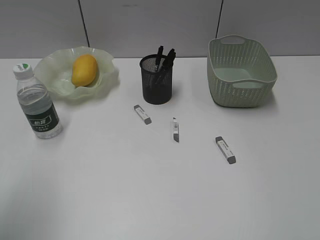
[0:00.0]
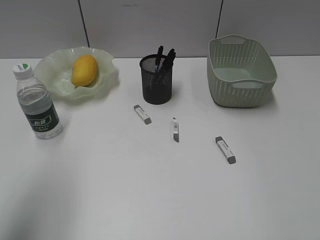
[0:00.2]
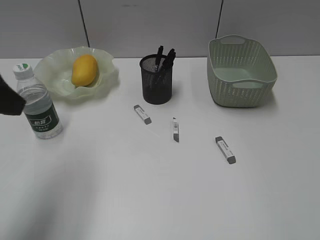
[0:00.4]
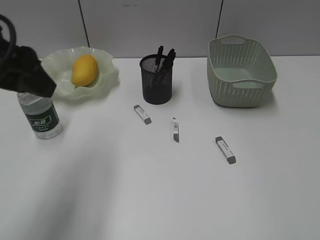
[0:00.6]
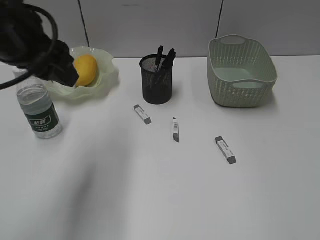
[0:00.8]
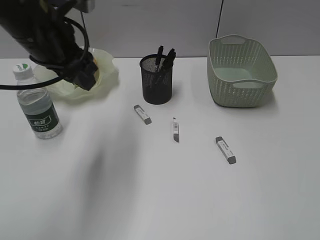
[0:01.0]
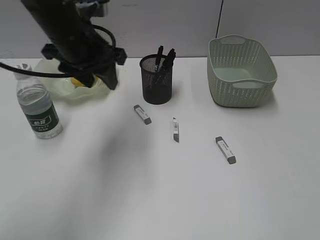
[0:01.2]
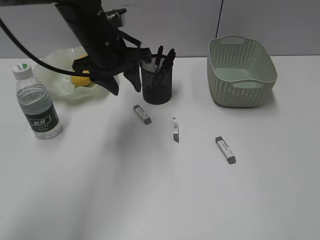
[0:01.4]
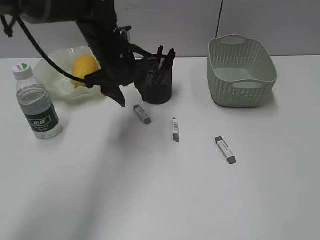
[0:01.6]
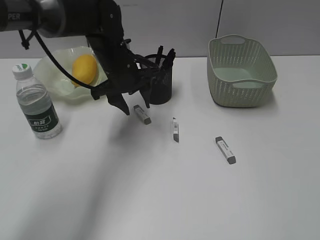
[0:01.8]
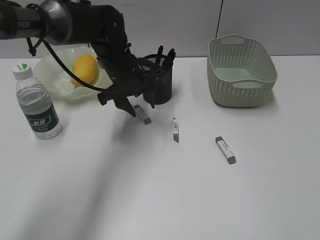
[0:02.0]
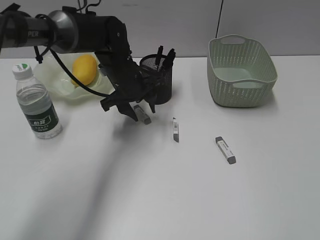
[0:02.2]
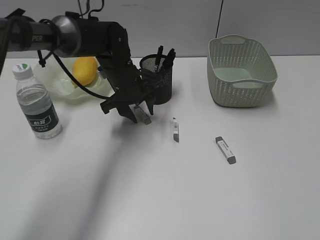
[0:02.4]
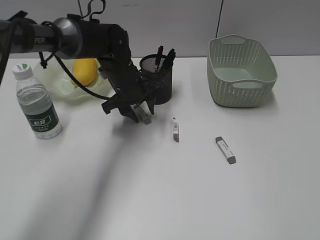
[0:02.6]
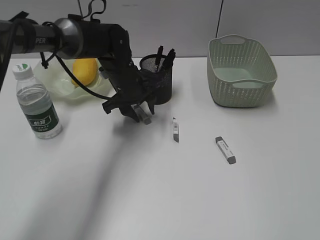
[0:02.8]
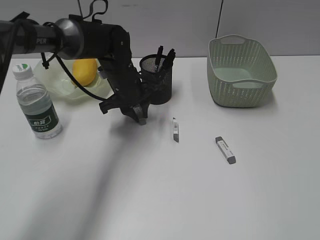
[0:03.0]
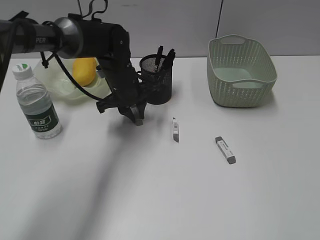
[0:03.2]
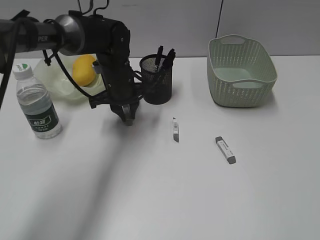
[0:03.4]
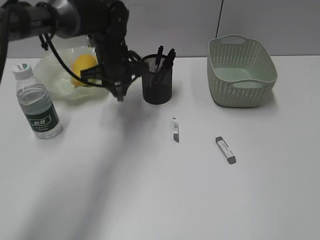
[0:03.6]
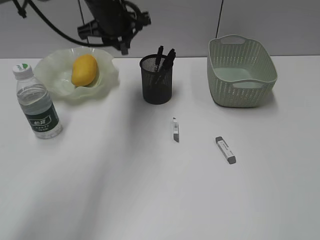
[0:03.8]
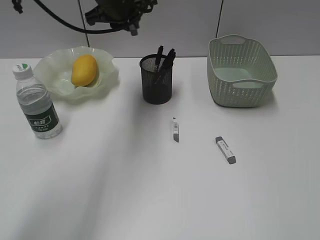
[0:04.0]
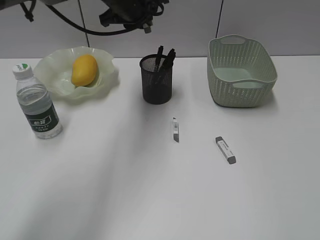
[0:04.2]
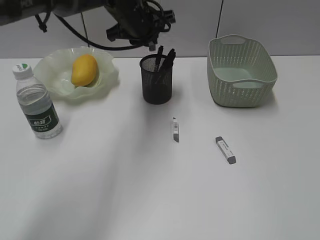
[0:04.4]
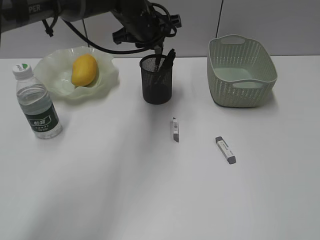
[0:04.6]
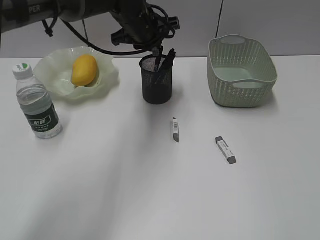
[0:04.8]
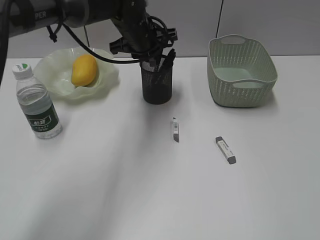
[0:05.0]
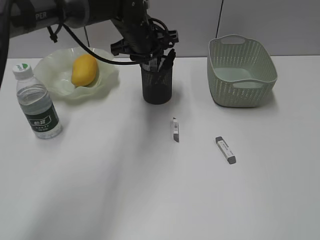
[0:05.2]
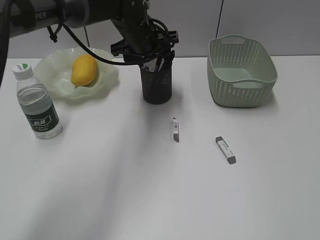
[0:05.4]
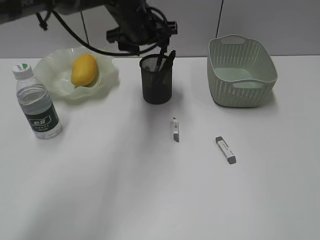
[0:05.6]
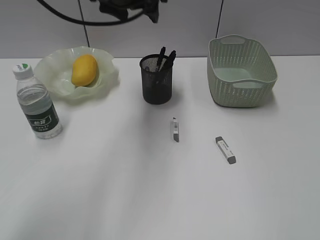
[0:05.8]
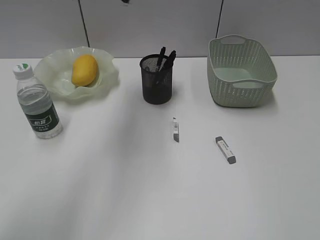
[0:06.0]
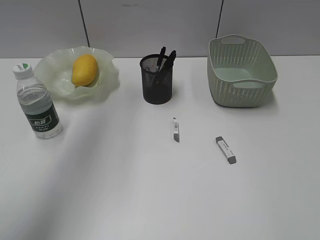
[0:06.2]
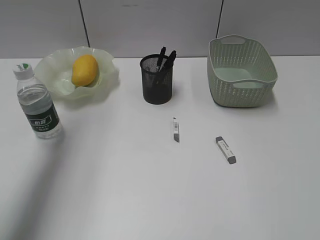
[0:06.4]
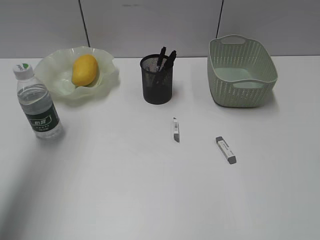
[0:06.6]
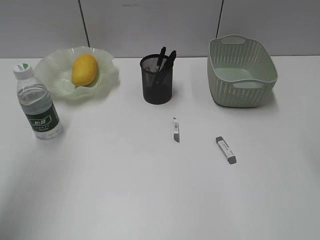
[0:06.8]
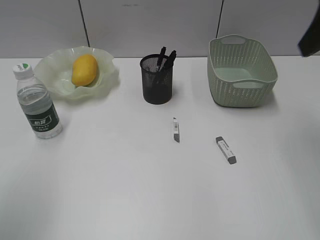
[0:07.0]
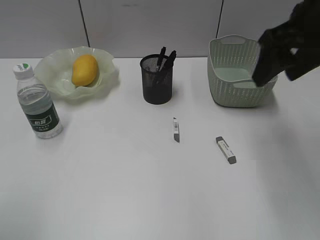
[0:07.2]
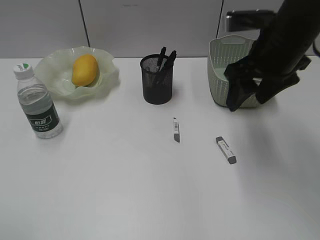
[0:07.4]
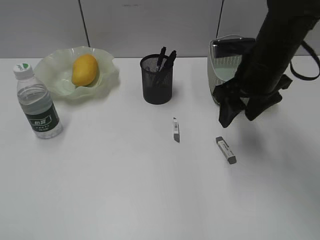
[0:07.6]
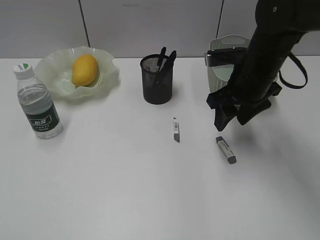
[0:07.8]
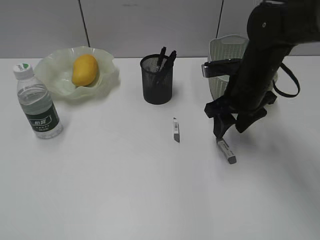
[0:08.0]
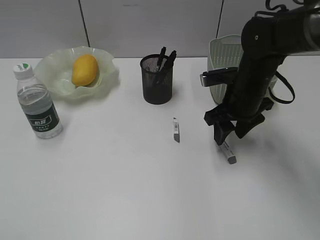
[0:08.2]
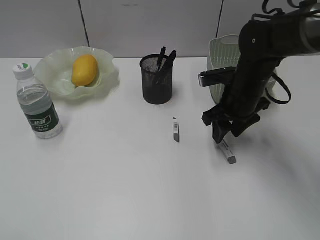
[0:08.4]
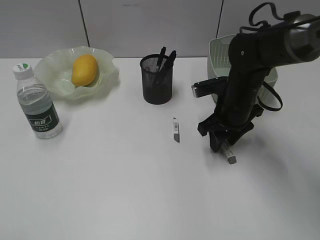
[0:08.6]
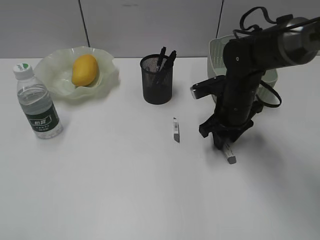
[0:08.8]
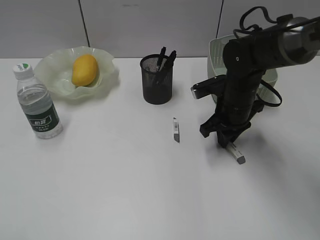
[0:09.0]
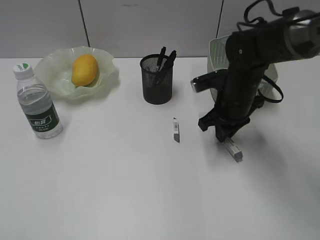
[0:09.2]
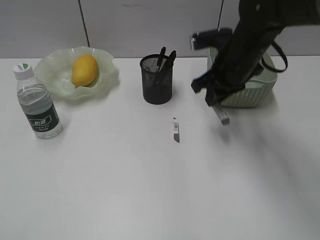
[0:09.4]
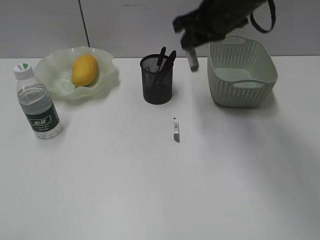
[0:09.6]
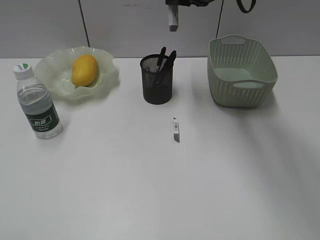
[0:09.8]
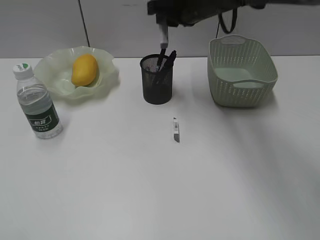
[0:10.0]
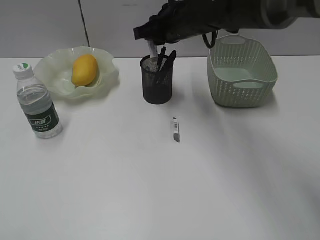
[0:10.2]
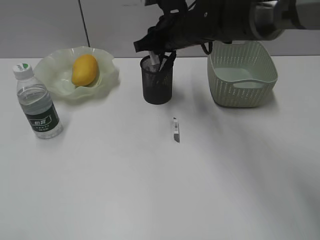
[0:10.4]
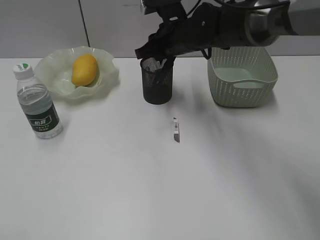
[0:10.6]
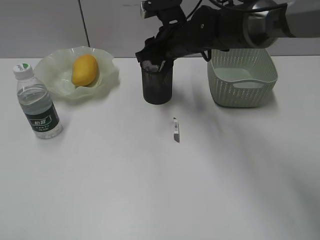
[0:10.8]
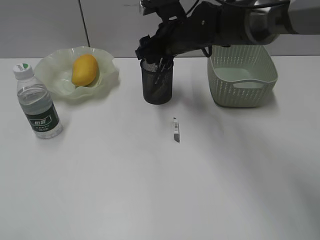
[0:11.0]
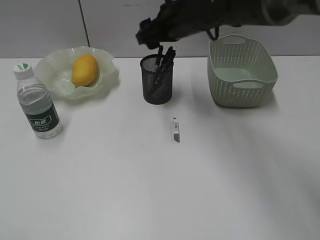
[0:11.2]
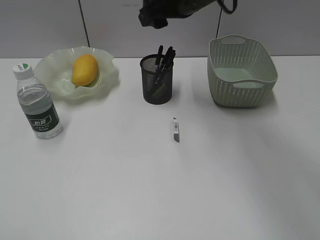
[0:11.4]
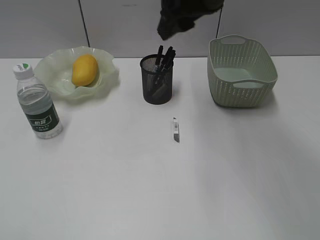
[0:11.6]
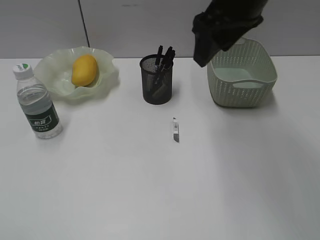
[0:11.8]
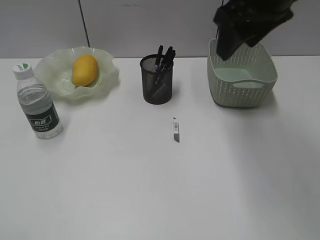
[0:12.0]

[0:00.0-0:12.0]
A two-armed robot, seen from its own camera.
Step, 0:00.0 to 0:03.0: Grasp the eraser with left gripper.
Step, 0:03.2 to 0:05.6: Place the eraser in pen holder with left gripper.
Step, 0:05.8 to 0:09.0: Grasp the eraser with right gripper.
Step, 0:09.2 to 0:10.8: Place the eraser in pen holder with right gripper.
0:00.0 to 0:01.6: The left gripper moves forward, to the right and downward, some 35 cm.
0:01.6 to 0:03.0: The left gripper heads downward, covering approximately 5 cm, and closes its fingers.
0:03.0 to 0:04.4: The left gripper heads upward, covering some 10 cm.
0:04.4 to 0:06.0: The left gripper travels upward, to the left and backward by some 20 cm, and opens.
0:06.0 to 0:07.6: The left gripper shifts approximately 40 cm backward and to the left, while the right gripper is displaced forward and to the left by about 35 cm.
0:07.6 to 0:09.0: The right gripper heads downward, covering approximately 10 cm, and closes.
0:09.0 to 0:10.4: The right gripper travels to the left, upward and forward by about 15 cm.
0:10.4 to 0:12.0: The right gripper goes roughly 20 cm upward, backward and to the right, and opens.

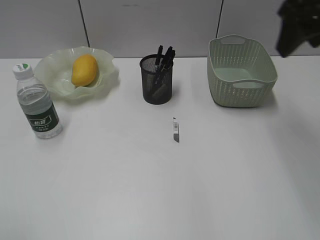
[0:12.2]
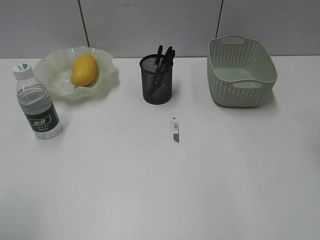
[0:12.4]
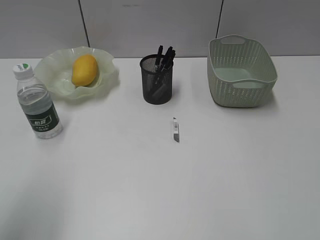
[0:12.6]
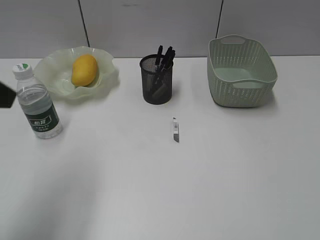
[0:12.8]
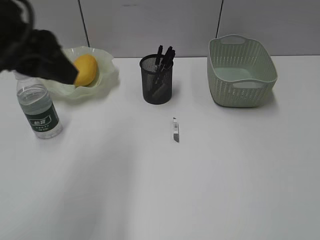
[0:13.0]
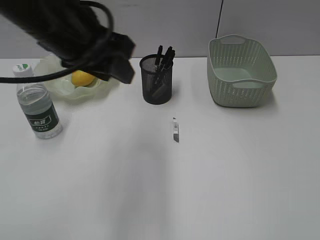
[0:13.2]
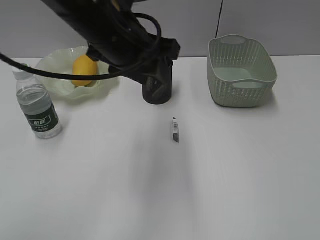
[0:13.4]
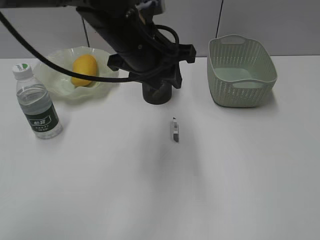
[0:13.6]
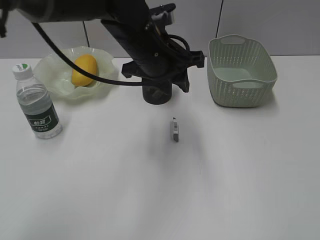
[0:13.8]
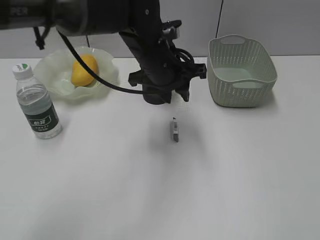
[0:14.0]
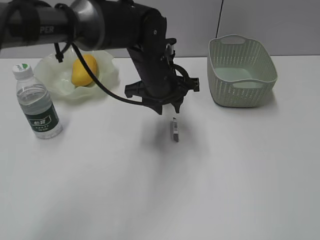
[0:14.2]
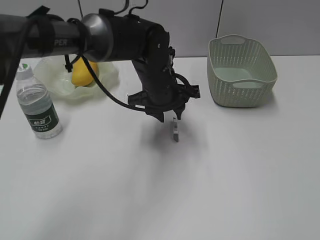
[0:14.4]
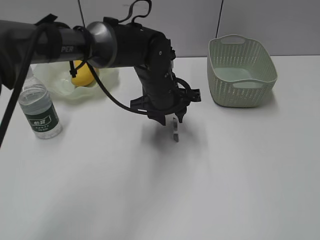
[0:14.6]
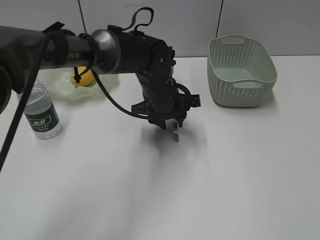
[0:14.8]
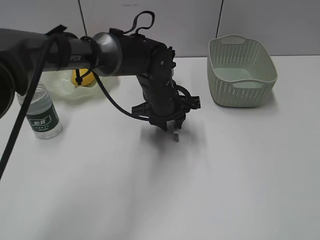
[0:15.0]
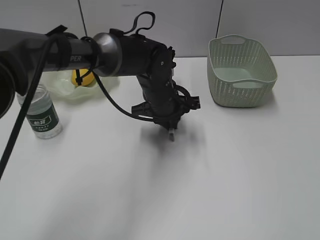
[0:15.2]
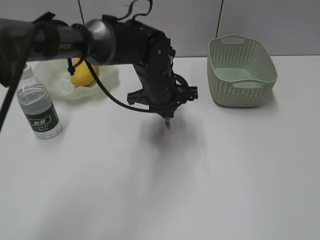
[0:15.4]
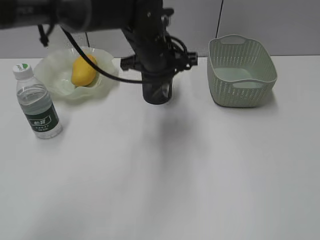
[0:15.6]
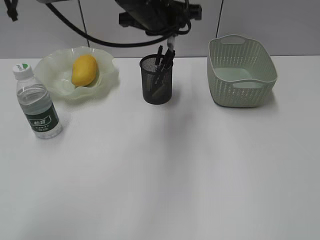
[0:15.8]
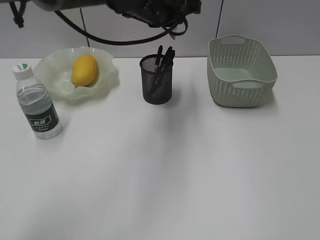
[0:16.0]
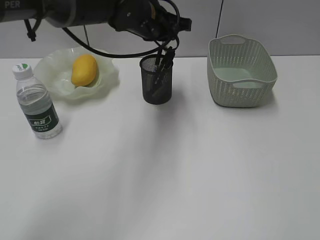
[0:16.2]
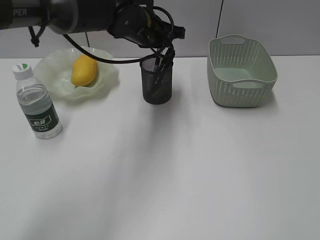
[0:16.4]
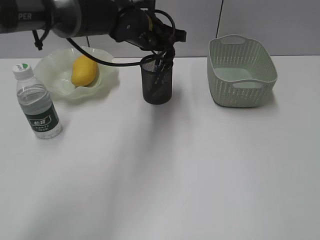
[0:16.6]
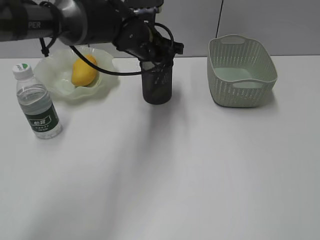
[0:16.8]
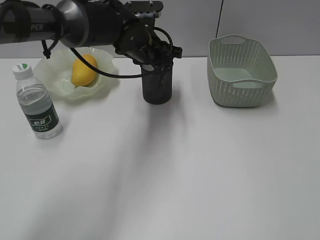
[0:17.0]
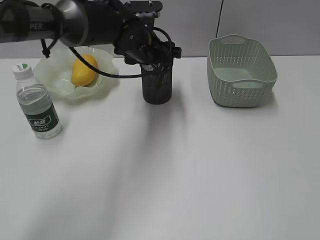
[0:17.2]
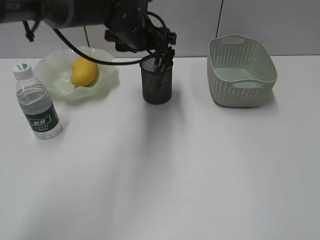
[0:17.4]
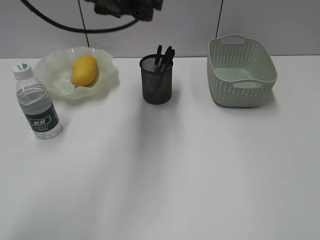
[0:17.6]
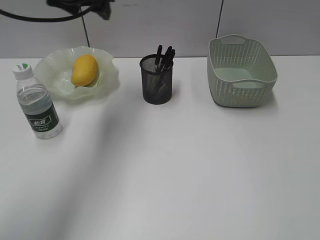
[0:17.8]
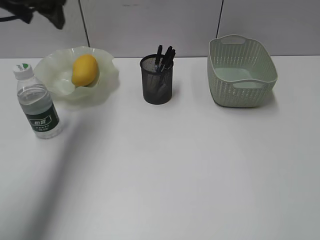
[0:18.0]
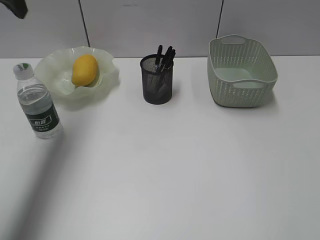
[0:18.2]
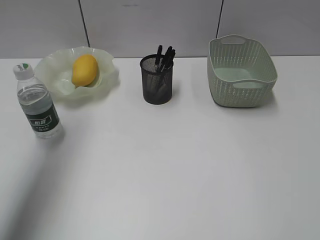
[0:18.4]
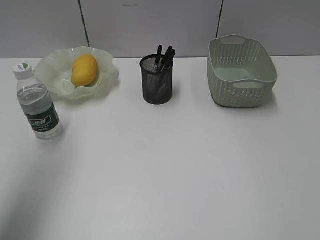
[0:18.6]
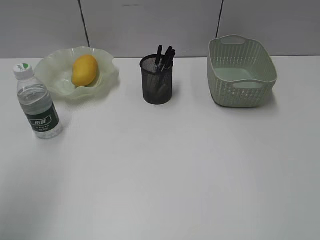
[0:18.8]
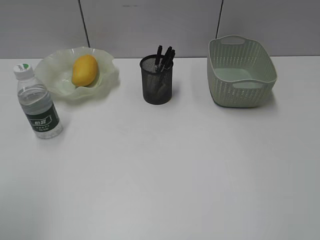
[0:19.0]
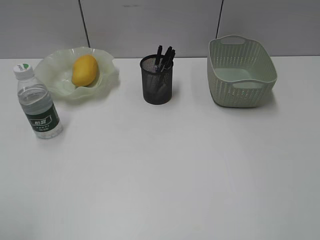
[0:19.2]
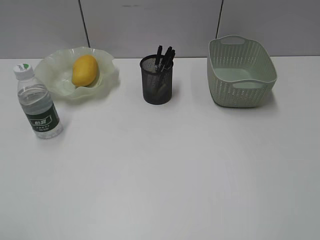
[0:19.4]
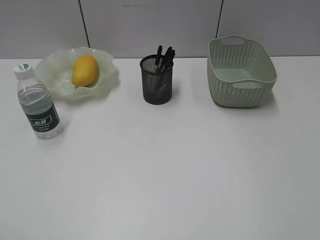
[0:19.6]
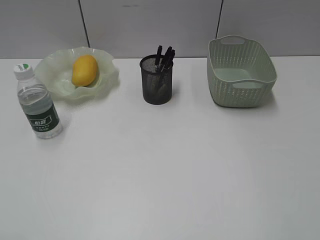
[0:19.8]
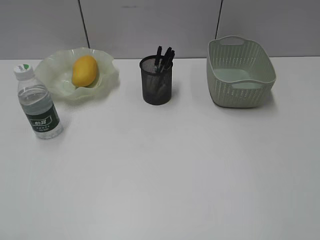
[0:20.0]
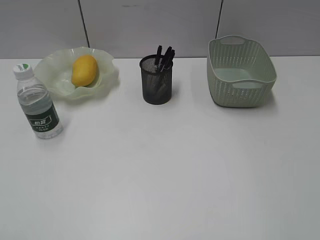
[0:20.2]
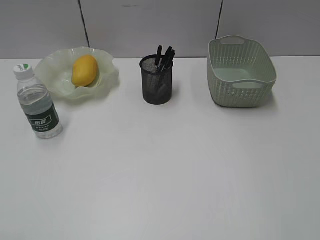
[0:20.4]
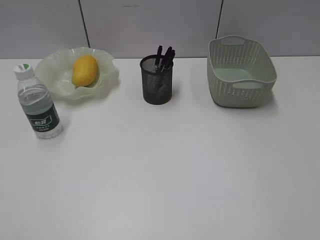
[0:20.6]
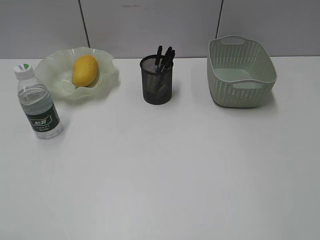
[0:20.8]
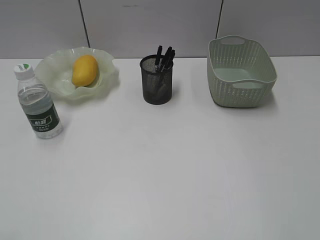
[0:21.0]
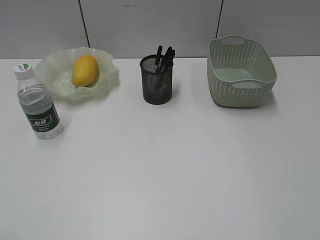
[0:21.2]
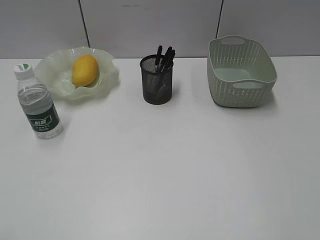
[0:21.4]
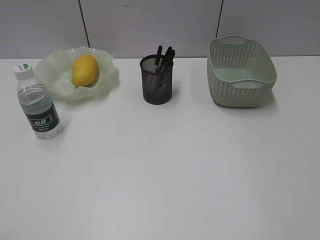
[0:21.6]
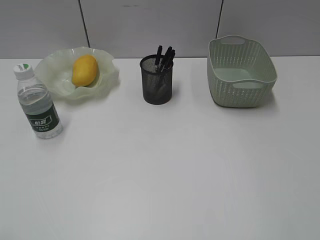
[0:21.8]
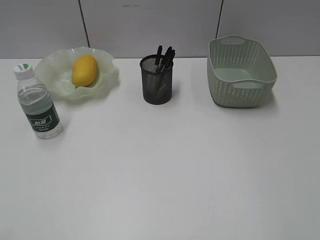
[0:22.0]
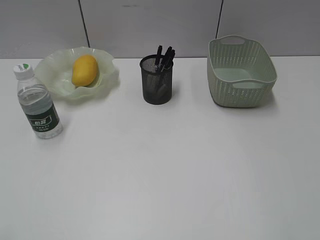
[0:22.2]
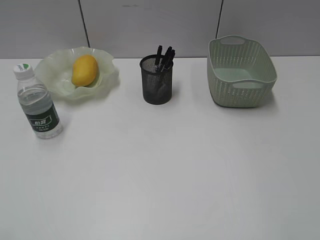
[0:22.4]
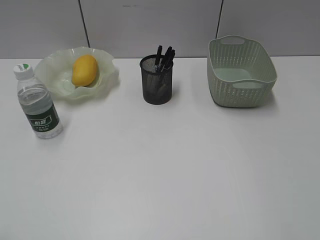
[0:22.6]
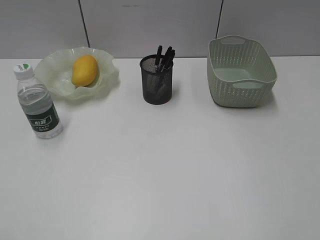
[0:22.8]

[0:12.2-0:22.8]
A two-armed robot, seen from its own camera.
Step, 0:12.2 to 0:15.2: Grasp the eraser with left gripper.
Step, 0:15.4 to 0:17.4: Place the eraser in pen holder with left gripper.
0:12.2 to 0:13.8: The right gripper goes roughly 30 cm backward. The left gripper moves forward and to the right, approximately 40 cm.
0:13.8 to 0:15.2: The left gripper shifts about 10 cm downward, and closes its fingers.
0:15.2 to 0:16.8: The left gripper moves upward and forward, approximately 10 cm.
0:16.8 to 0:18.2: The left gripper heads to the left and upward, covering some 30 cm, and opens its fingers.
0:18.2 to 0:19.8: The left gripper heads backward, covering about 40 cm.
0:21.2 to 0:22.8: Both grippers stay about where they are.
